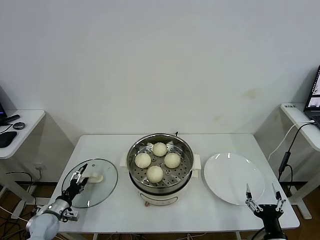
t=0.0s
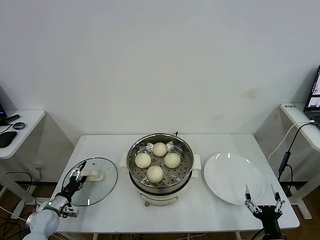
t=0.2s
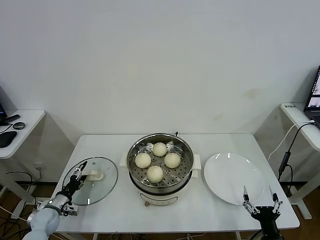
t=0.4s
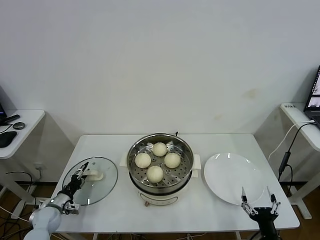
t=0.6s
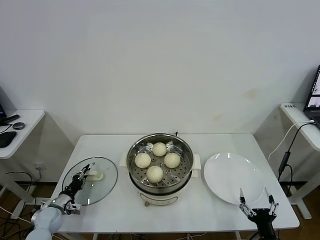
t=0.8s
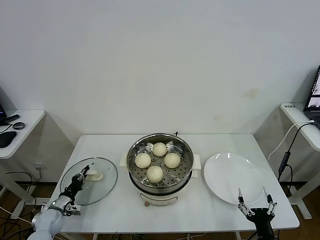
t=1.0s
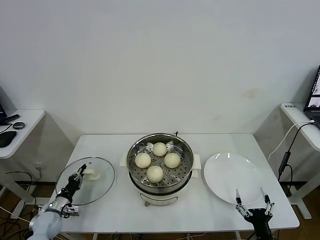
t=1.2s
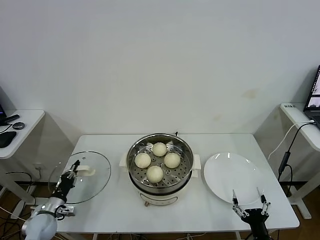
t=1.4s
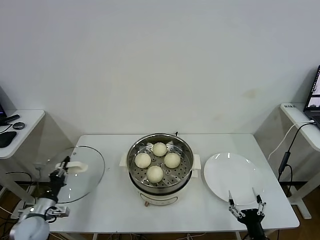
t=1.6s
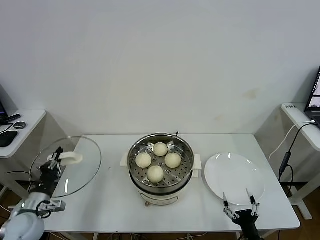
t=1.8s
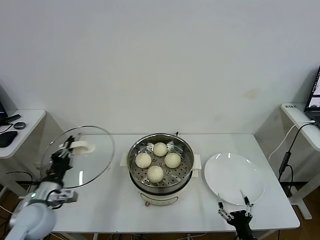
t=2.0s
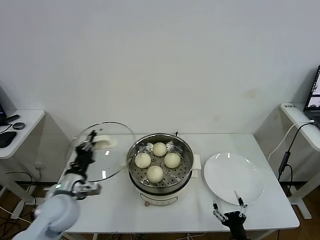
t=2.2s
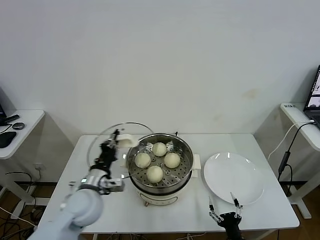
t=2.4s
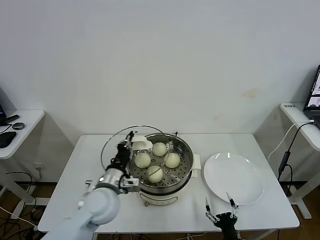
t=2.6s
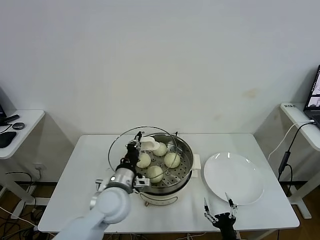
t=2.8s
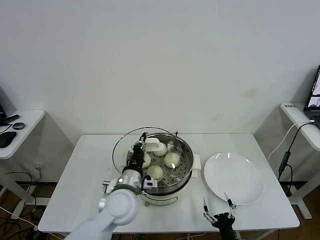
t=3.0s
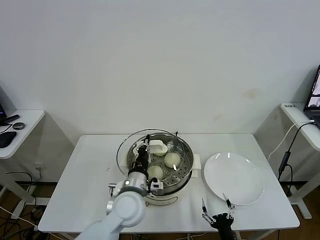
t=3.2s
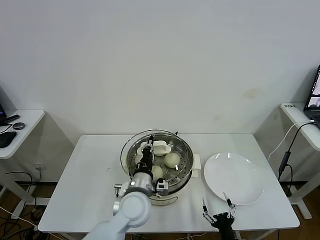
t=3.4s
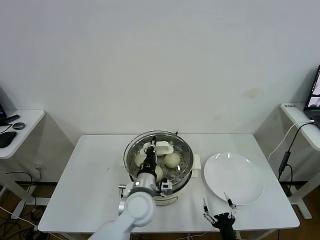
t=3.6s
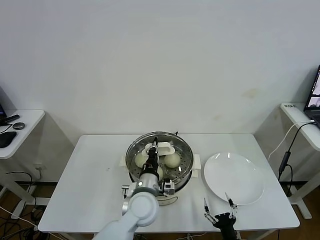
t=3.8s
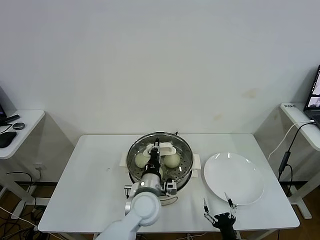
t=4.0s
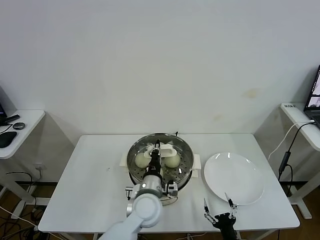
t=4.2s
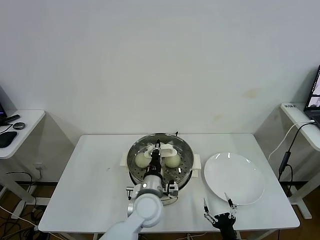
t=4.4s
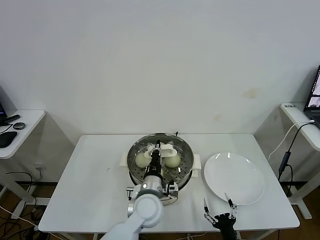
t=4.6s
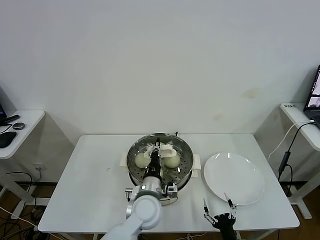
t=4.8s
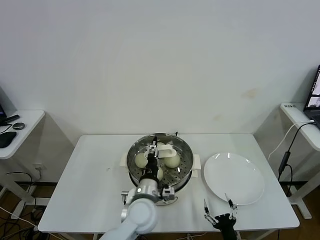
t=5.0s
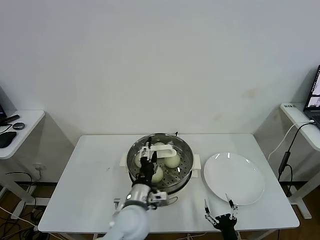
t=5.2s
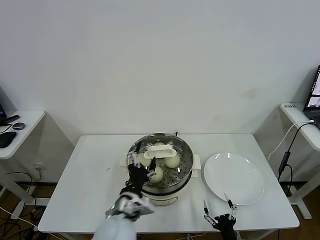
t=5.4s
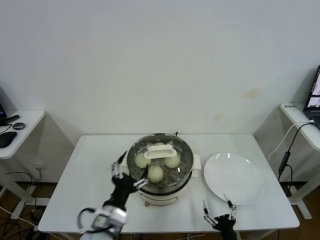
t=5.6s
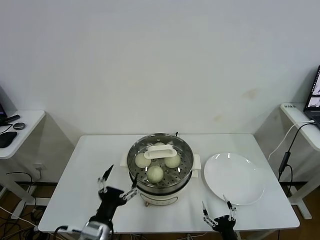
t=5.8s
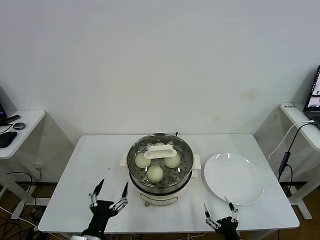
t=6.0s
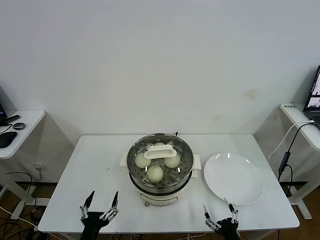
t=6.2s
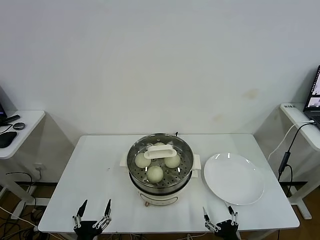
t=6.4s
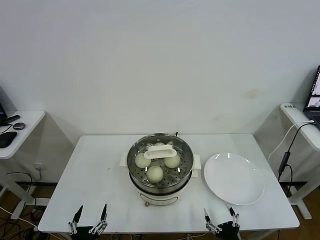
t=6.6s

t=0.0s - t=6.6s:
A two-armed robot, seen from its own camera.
Task of the whole recording: take steamed baozi put them in steamer.
Step, t=1.4s - t=5.4s: Place the pot lid on the steamer with left gripper.
t=0.0s - t=1.6s: The left gripper goes roughly 5 cm upward, and closes its fingers.
t=1.6s - t=3.2s: The left gripper travels to the right and upward by approximately 35 cm. The right gripper moves to the left and downward, approximately 10 cm.
t=3.2s - t=5.0s: The left gripper shifts by about 5 cm, and opens up.
t=5.0s - t=6.6s: The left gripper is displaced backward, to the left and downward by roughly 30 cm, and opens up.

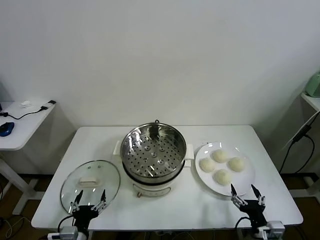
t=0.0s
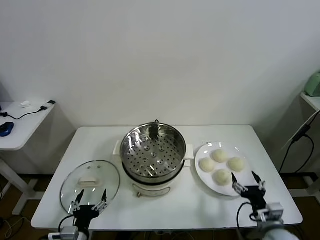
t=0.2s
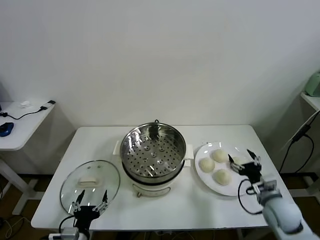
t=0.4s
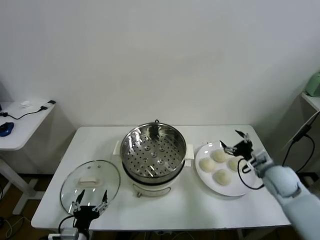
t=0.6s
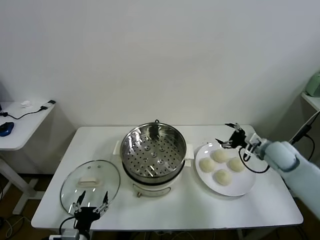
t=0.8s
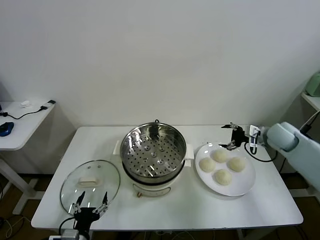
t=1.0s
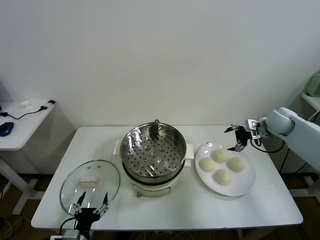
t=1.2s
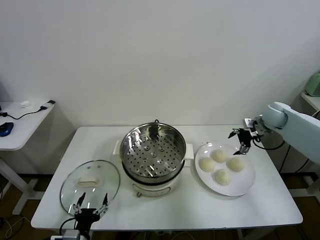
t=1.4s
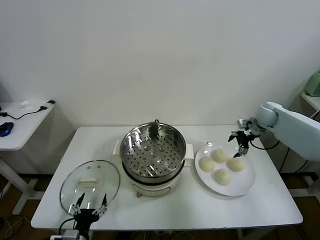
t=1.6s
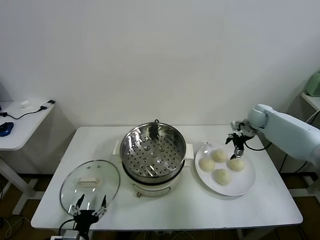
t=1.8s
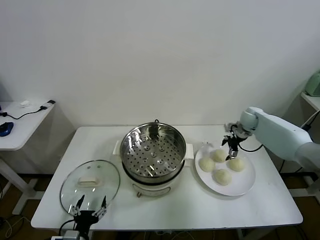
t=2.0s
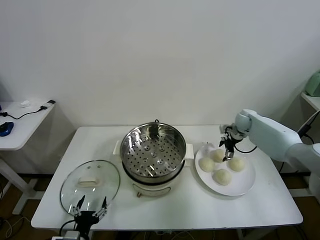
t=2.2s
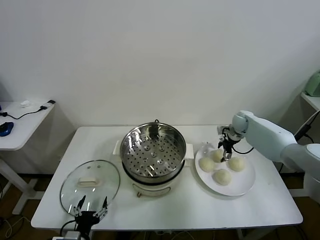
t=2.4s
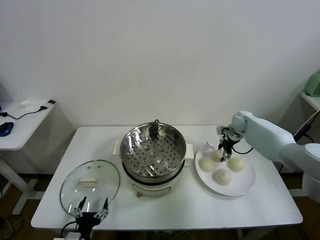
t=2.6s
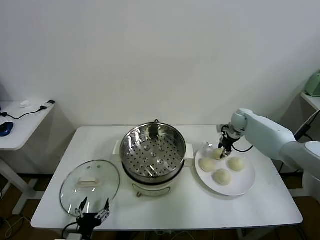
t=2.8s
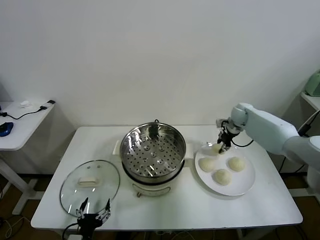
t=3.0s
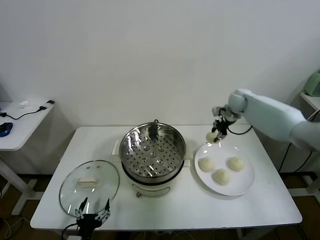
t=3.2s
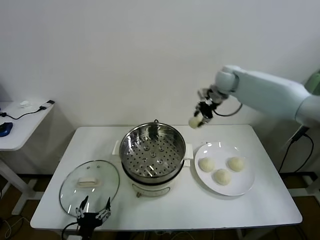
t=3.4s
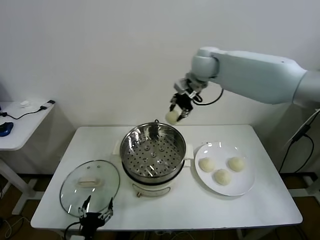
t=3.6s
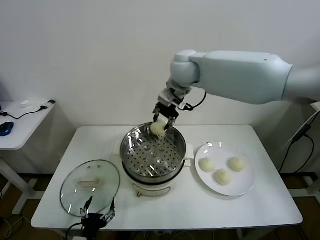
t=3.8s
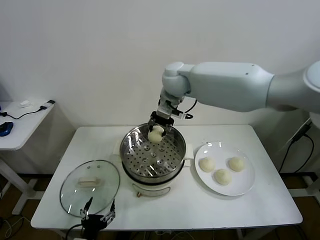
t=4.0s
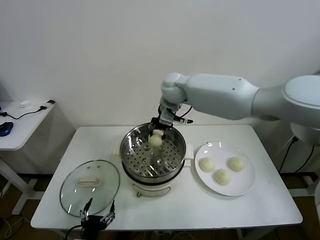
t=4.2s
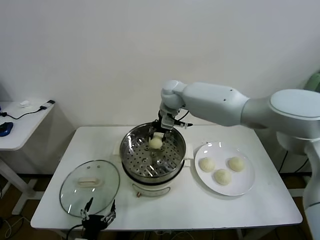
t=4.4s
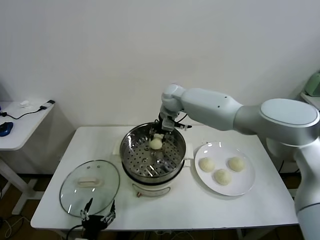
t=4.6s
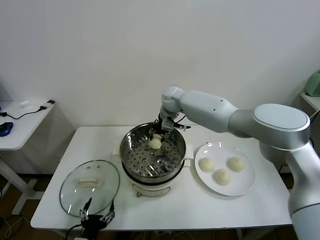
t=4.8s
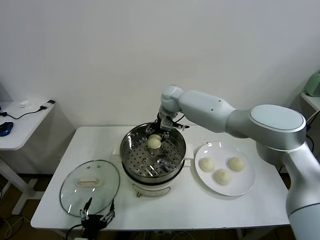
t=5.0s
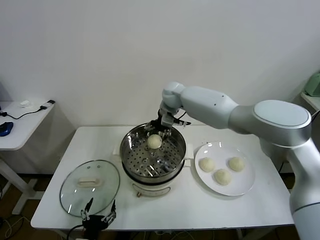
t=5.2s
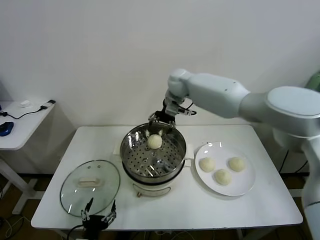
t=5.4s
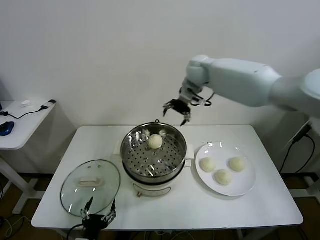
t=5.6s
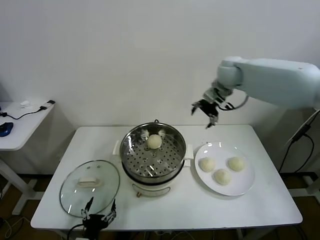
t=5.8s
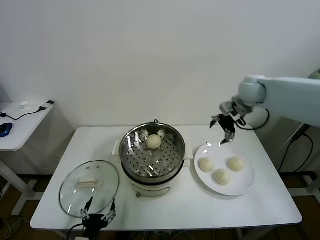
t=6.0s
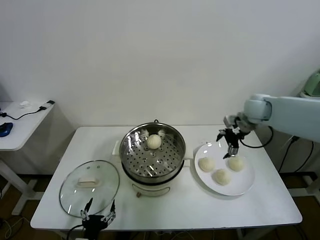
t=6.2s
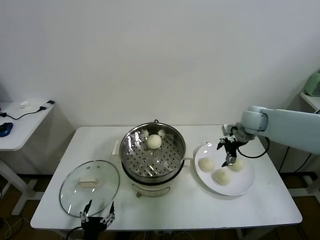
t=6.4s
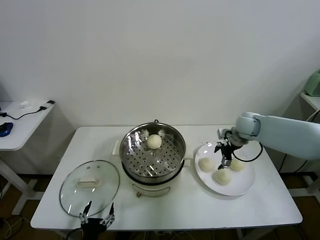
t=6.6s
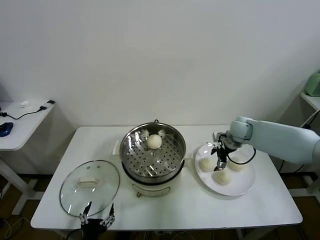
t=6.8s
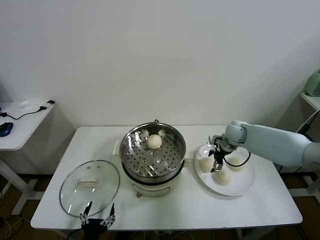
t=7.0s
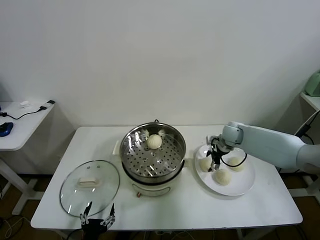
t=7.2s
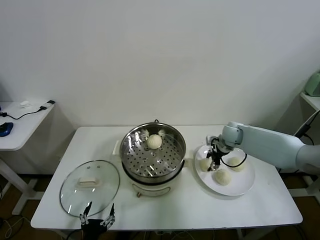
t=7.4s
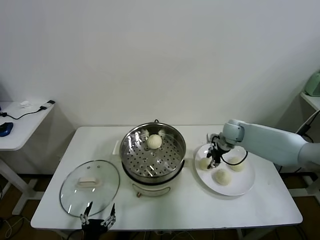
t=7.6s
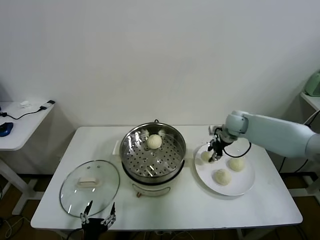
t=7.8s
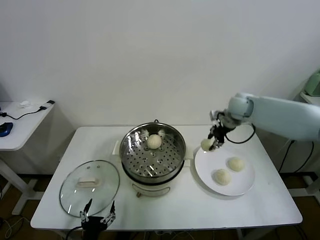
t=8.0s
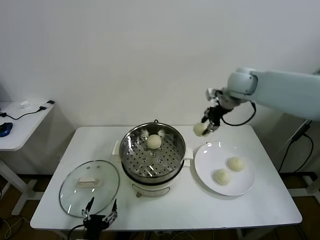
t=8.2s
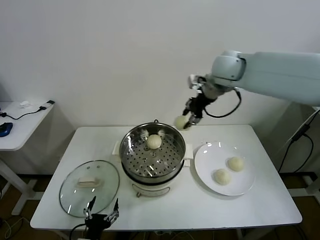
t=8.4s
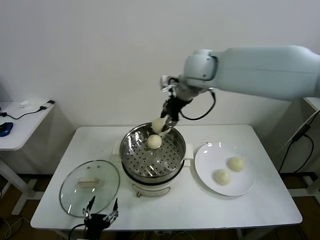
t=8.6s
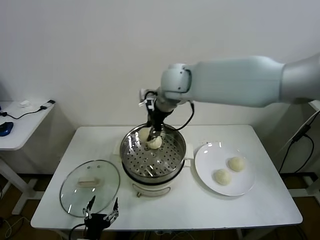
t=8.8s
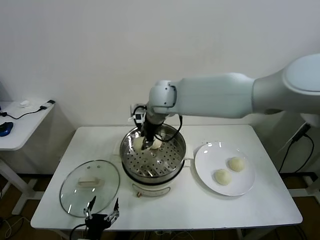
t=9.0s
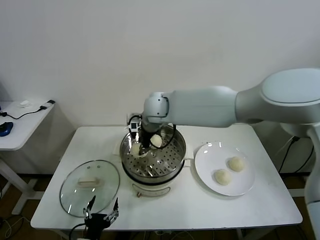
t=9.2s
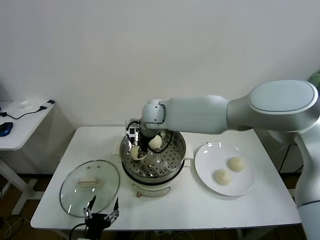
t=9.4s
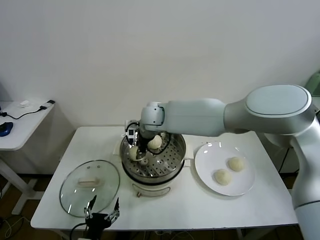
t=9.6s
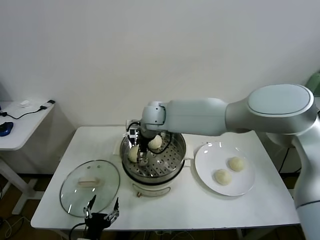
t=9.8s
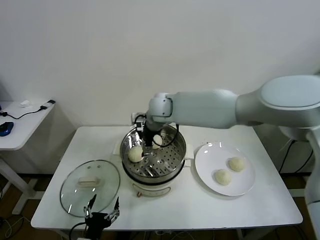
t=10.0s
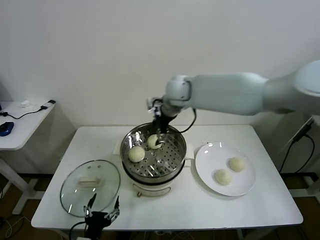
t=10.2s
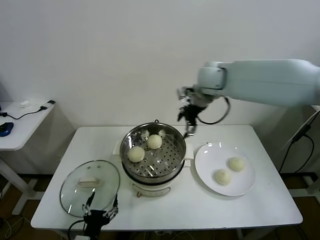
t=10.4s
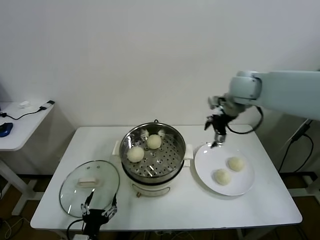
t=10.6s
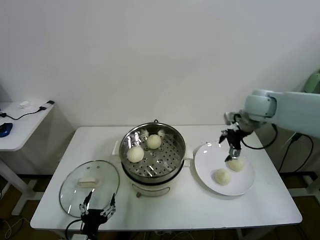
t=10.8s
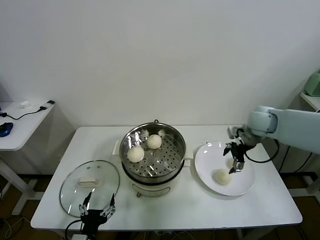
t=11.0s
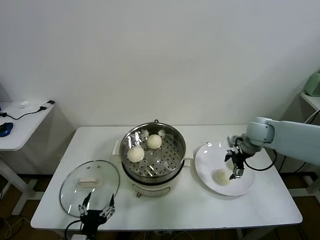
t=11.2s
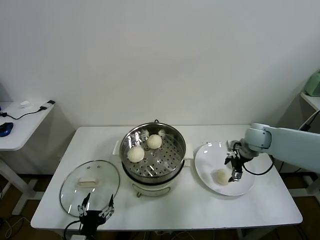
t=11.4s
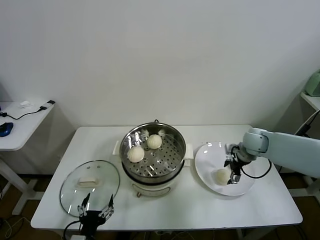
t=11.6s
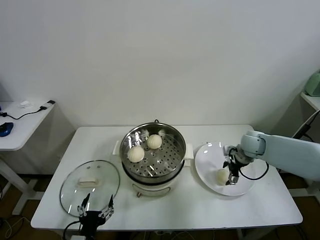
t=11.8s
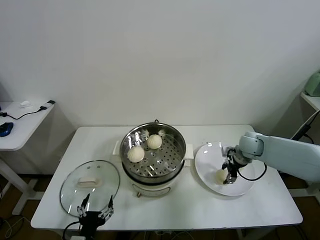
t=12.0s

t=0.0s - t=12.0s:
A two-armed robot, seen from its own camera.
Task of the whole recording: take steamed baozi put them in steamer.
Step, t=0.0s - t=2.6s: Grasp the baozi in the plate with right gripper.
Step, t=2.8s - t=5.0s: Place the baozi on the steamer with right gripper.
Step, t=5.4s - t=7.4s: Grasp the baozi in the plate with right gripper.
Step, t=7.6s - t=9.8s: Place the baozi on the steamer with right gripper.
t=1.6s - t=3.0s: The right gripper shifts approximately 5 cm to the left, and closes up.
t=3.0s - t=4.4s: The right gripper heads to the left, covering some 30 cm.
t=4.4s - t=6.0s: The right gripper moves to the right, some 25 cm, and opens up.
t=6.0s - t=7.6s: The right gripper travels downward by about 15 cm, and closes its fingers.
t=7.6s - t=9.0s: The right gripper goes roughly 35 cm to the left and upward.
t=9.0s - t=10.4s: The right gripper heads to the right, covering some 20 cm, and opens its fingers.
t=10.4s - t=12.0s: The right gripper shifts about 30 cm downward and to the right, and closes up.

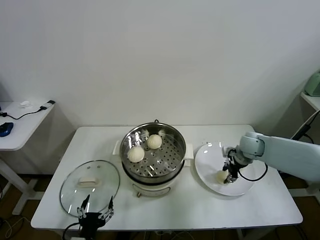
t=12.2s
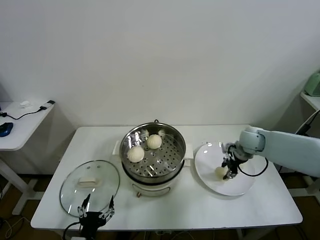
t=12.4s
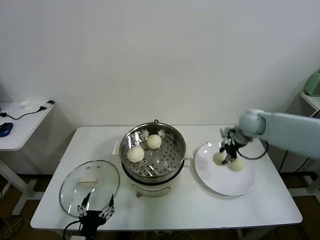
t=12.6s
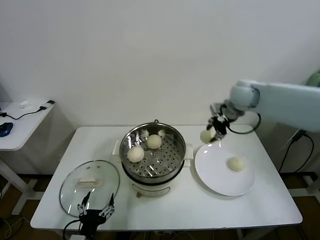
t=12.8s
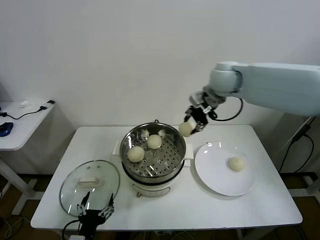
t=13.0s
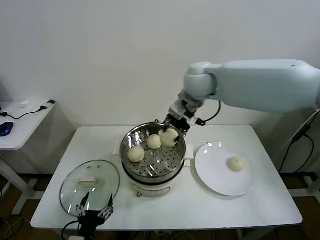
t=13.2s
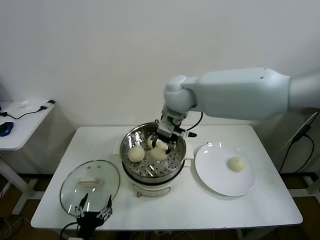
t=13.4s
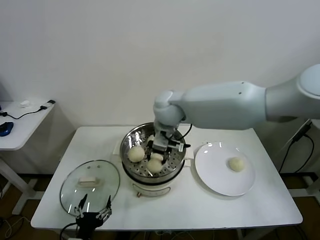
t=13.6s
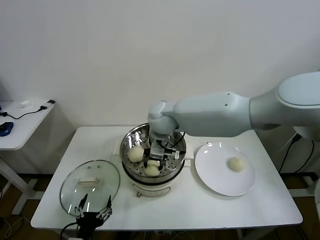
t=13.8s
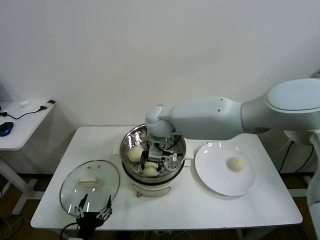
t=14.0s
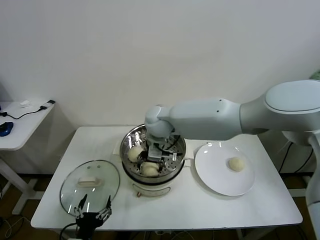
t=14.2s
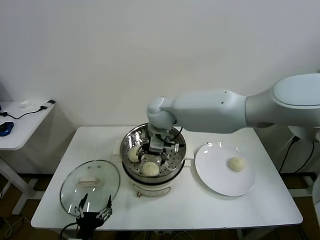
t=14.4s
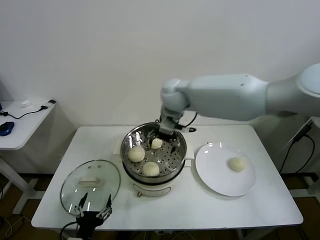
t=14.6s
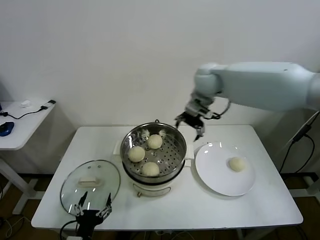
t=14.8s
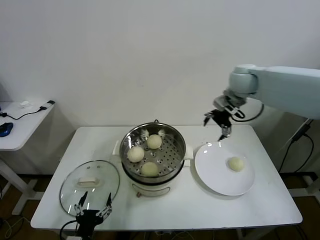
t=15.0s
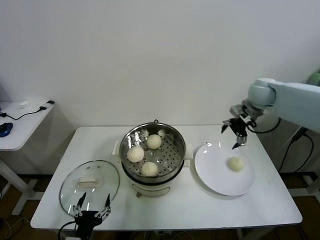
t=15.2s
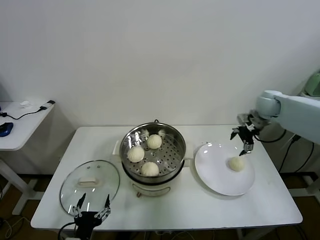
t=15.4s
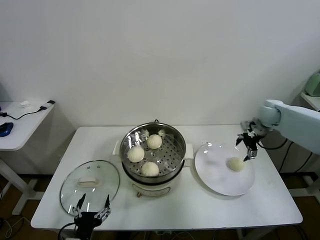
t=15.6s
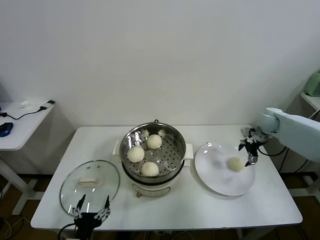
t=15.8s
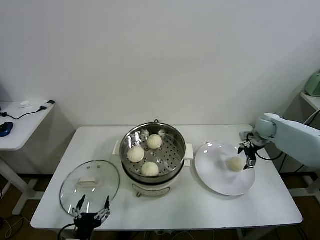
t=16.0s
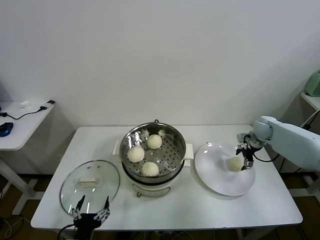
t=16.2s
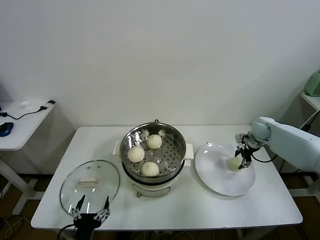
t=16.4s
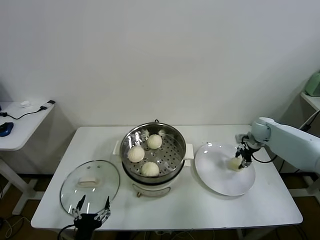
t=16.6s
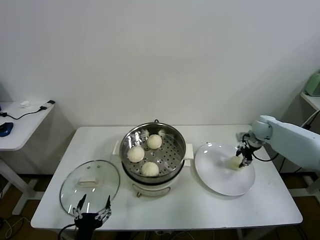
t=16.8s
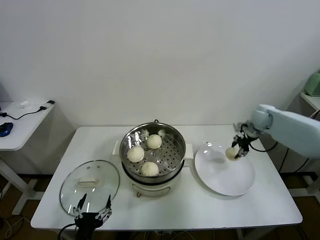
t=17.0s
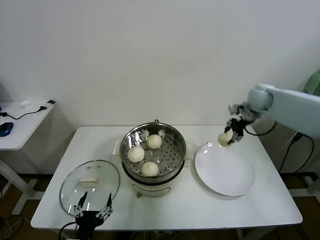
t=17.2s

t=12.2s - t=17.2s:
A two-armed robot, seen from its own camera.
Task of the whole recording: take steamed baozi put them in steamer.
Step, t=12.4s - t=14.2s: Place the baozi on the steamer with right gripper.
Step, t=14.4s - t=16.4s: Grasp the baozi in the plate with right gripper.
t=12.2s - t=13.8s: The right gripper moves to the left and upward, some 35 cm.
t=13.8s - t=15.6s: The right gripper shifts some 40 cm to the right, and opens up.
t=15.6s - t=17.2s: The right gripper shifts some 10 cm upward and to the left, and closes up.
